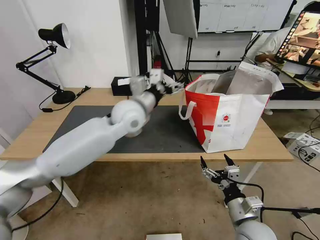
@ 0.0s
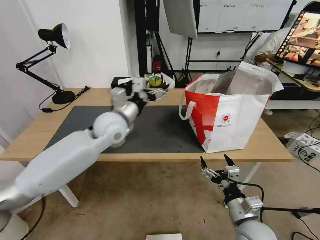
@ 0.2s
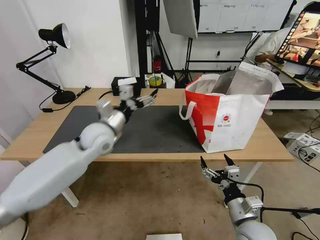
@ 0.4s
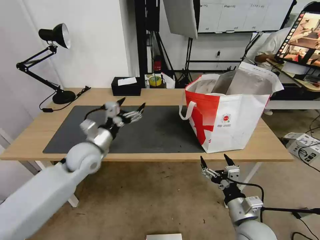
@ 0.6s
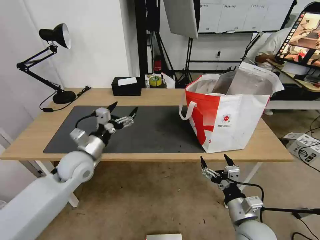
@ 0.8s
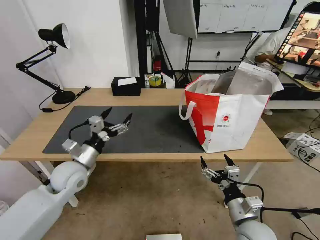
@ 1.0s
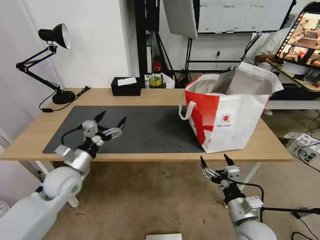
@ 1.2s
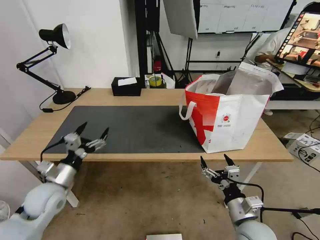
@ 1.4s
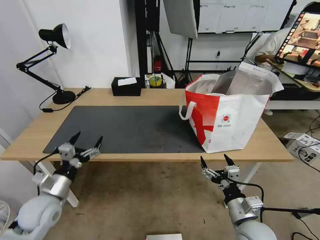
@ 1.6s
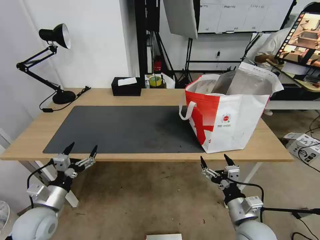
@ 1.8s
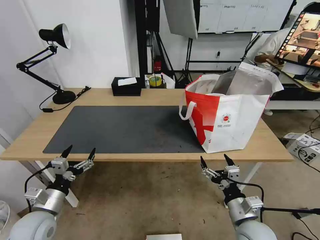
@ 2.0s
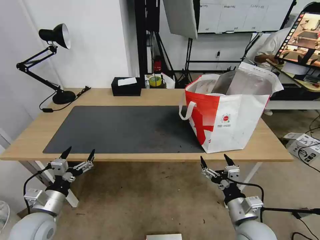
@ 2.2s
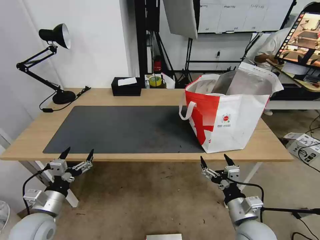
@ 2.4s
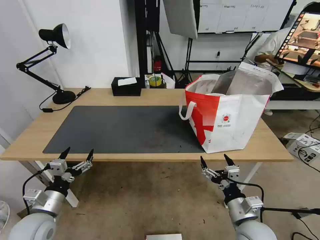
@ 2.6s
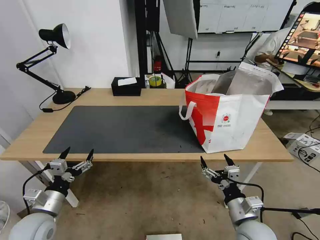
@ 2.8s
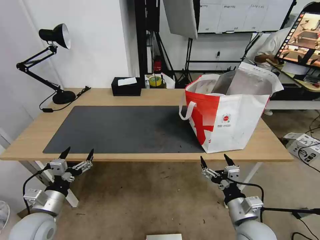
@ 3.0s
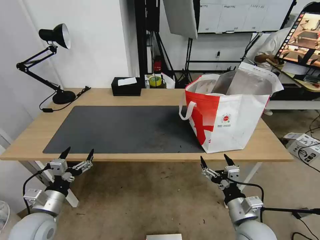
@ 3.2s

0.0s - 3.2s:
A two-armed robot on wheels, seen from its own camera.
Task of the whole recording: Pick up the trash from the table and place it into the takeout bag.
0.0s - 1.6s: The left gripper is displaced to the left, backward and downward by approximately 40 cm.
1.6s - 3.2s: The grippers stay close to where they were, moving slightly.

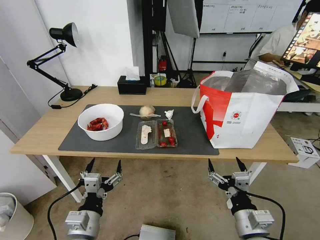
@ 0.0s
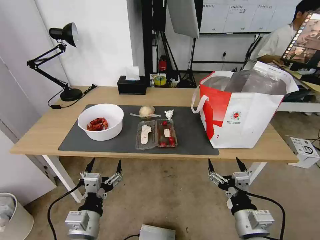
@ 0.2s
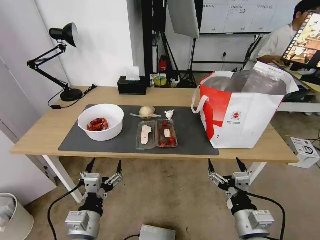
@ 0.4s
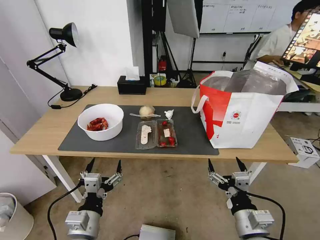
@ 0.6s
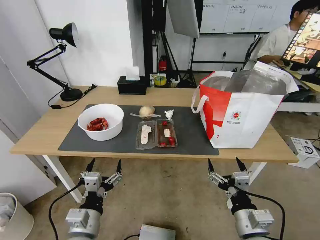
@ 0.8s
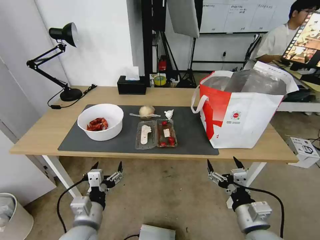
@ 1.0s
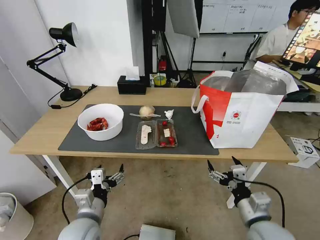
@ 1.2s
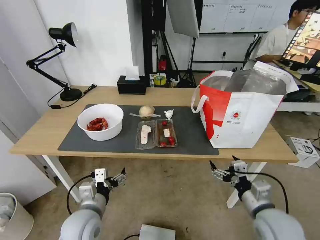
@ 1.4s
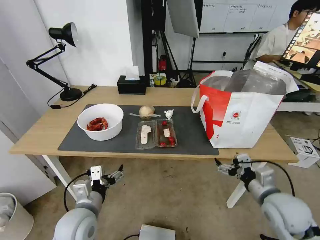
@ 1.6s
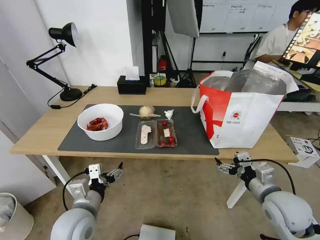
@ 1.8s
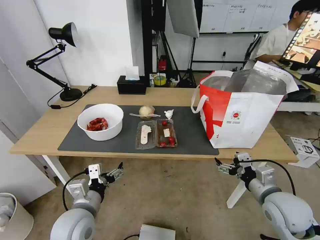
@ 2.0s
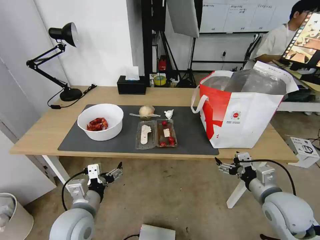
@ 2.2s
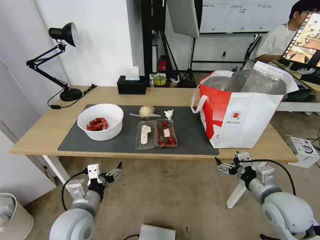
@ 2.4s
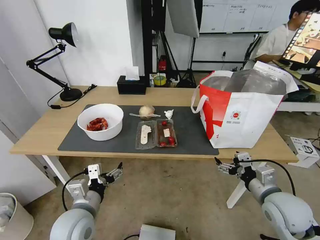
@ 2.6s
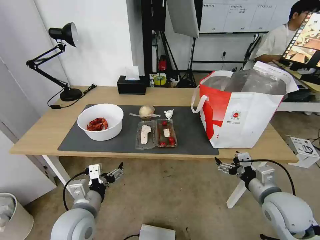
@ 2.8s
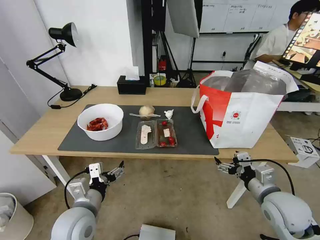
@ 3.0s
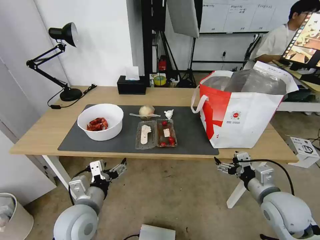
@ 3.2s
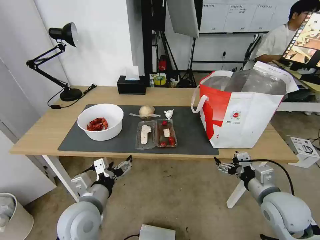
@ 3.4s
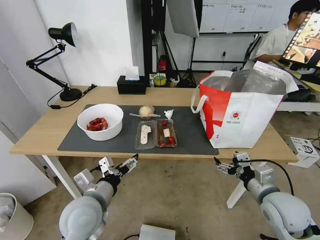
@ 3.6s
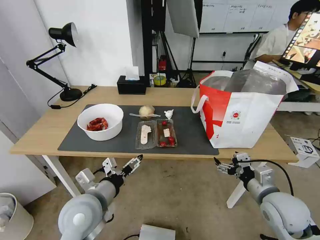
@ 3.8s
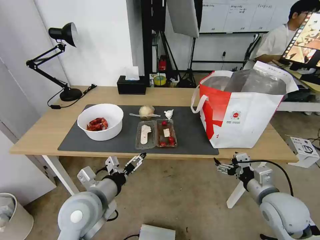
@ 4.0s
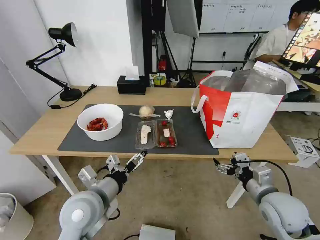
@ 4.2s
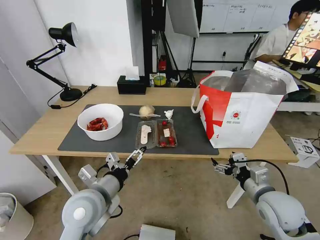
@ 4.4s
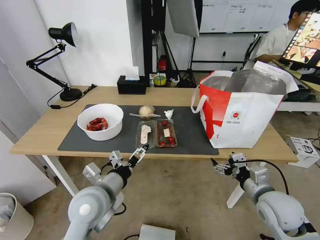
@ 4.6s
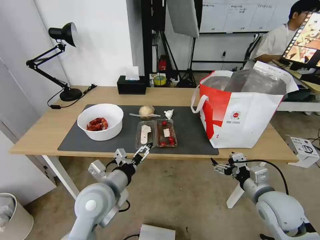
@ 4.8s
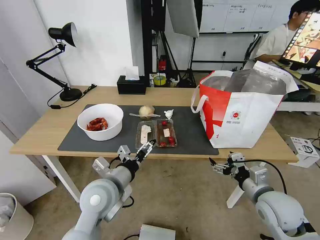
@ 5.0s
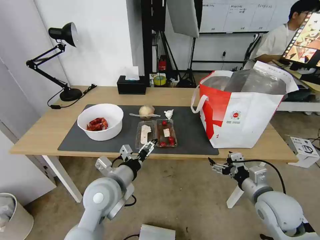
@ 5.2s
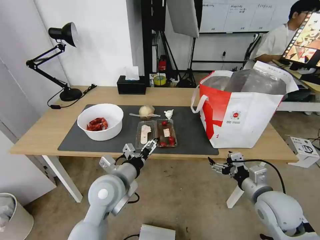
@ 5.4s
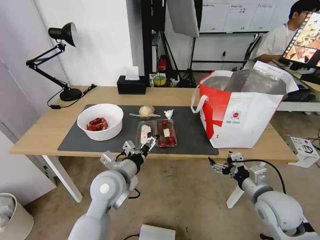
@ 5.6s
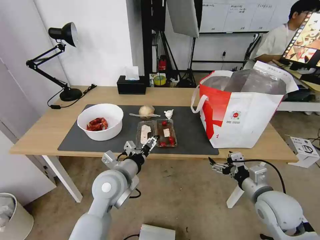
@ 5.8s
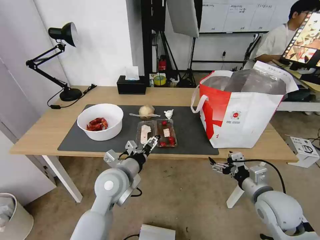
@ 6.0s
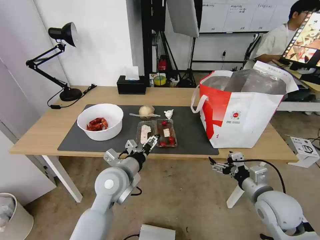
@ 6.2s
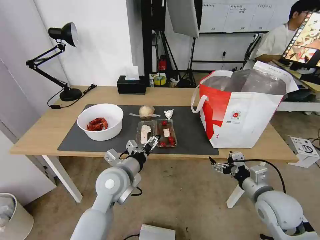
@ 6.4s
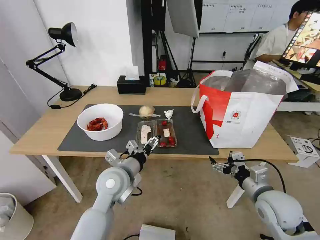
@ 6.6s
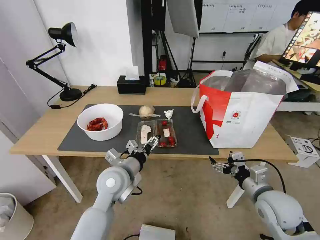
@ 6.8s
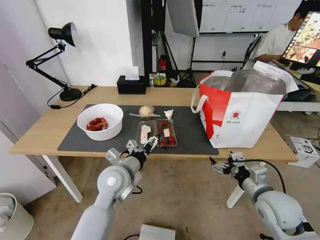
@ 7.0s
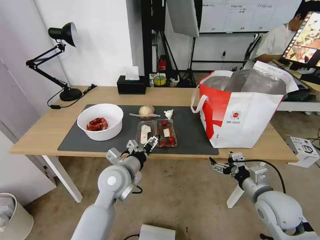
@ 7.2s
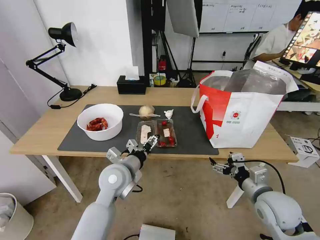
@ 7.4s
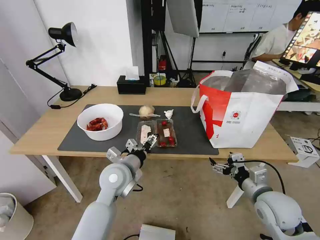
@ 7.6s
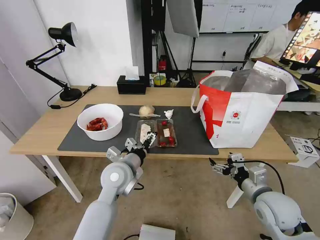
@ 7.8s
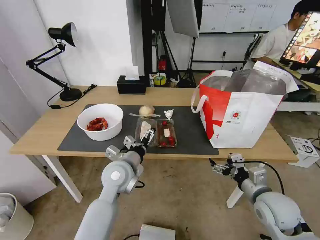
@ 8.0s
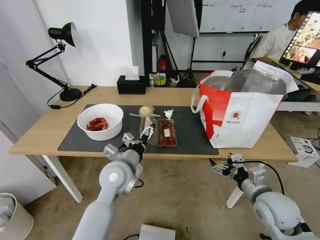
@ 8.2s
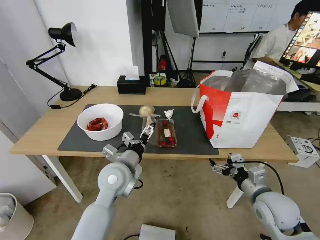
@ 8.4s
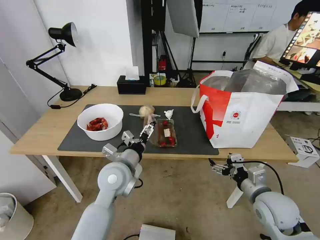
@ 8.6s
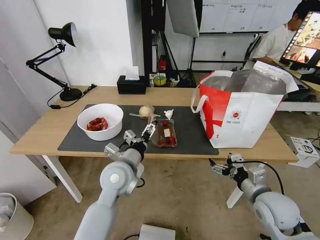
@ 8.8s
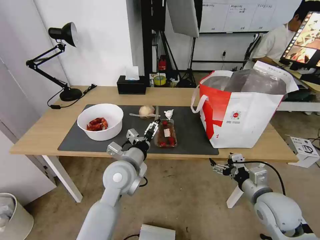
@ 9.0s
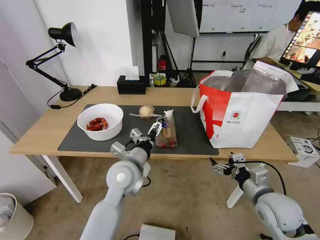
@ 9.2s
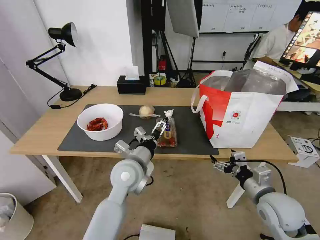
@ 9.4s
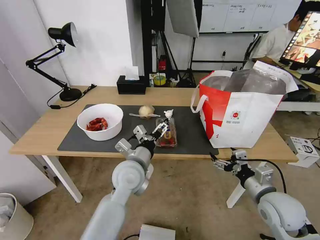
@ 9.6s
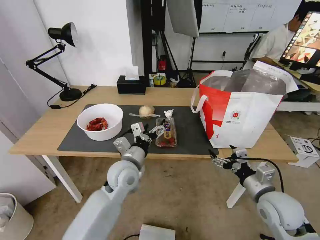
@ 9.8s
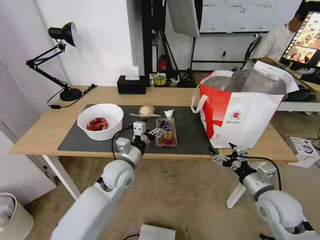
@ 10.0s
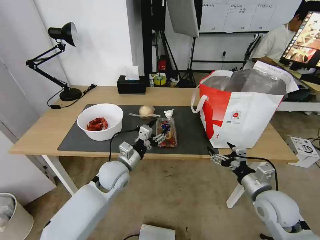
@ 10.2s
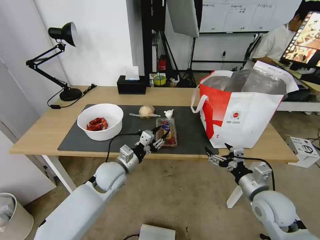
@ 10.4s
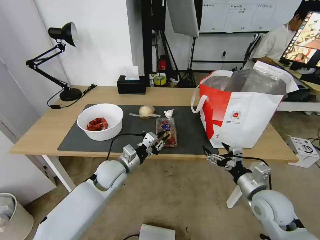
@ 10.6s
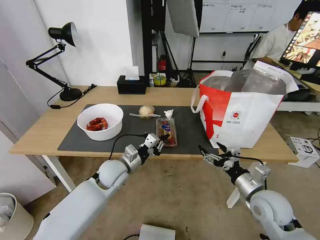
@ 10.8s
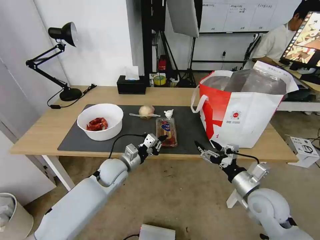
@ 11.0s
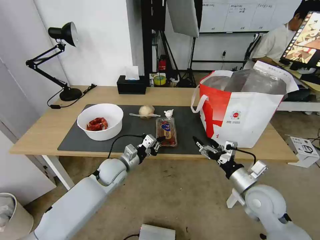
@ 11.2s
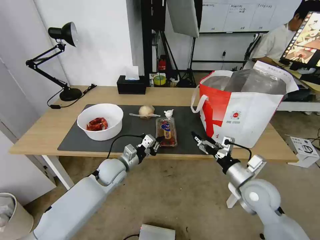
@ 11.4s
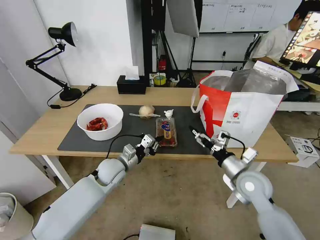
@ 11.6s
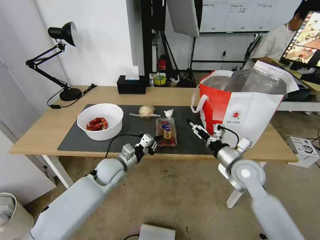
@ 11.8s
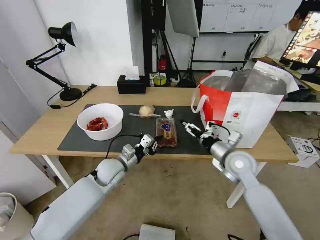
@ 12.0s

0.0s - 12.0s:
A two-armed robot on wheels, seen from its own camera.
Task of the whole recording: Pick up the trash from the table and place it into the takeout bag.
1.6s - 3.0s: The grippers stay close to where they were, moving slightly.
3.0s - 4.4s: The left gripper goes approximately 5 cm upward.
4.4s - 6.0s: The left gripper shifts some 5 cm forward.
6.0s - 9.0s: The grippers make only small movements.
9.0s - 10.4s: The left gripper is displaced downward and to the left by some 10 cm, and closes its fingers.
10.4s - 12.0s: The right gripper is displaced forward and to the left by some 15 cm.

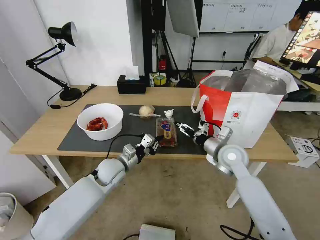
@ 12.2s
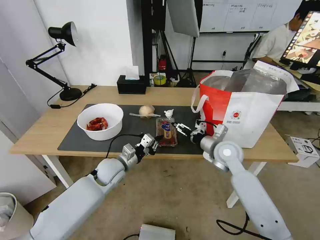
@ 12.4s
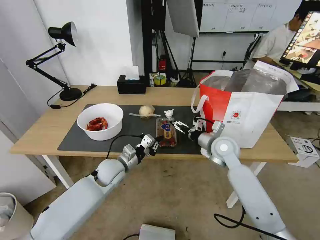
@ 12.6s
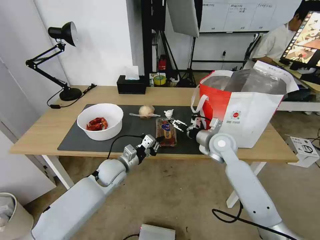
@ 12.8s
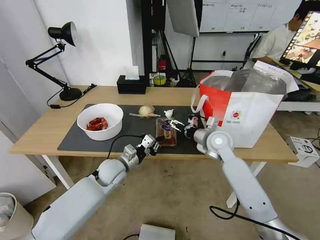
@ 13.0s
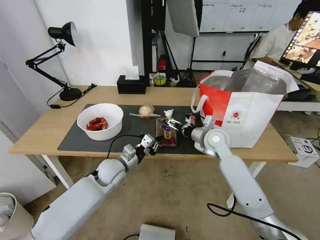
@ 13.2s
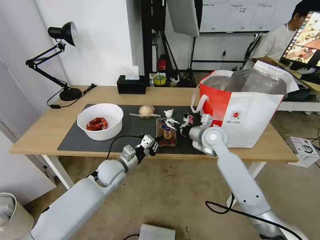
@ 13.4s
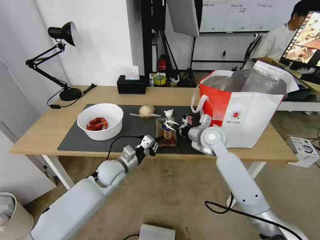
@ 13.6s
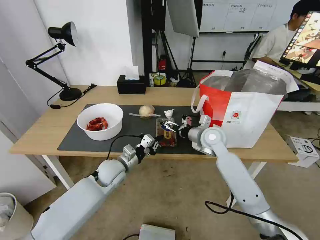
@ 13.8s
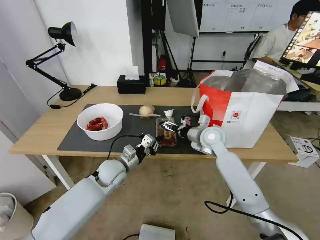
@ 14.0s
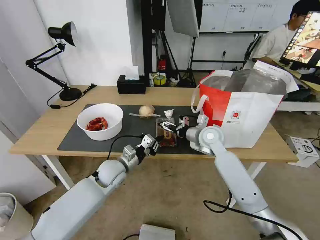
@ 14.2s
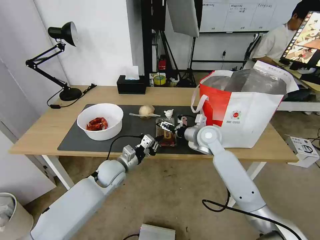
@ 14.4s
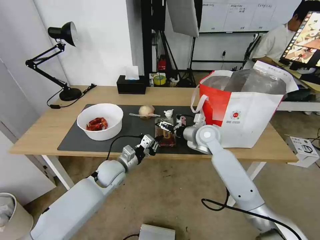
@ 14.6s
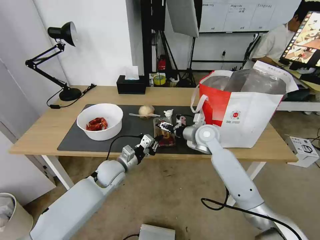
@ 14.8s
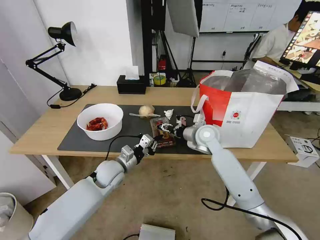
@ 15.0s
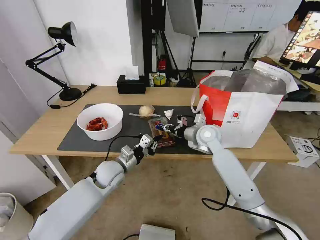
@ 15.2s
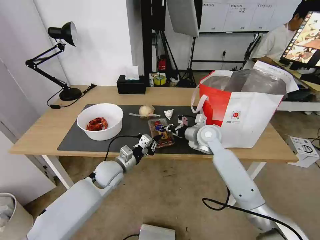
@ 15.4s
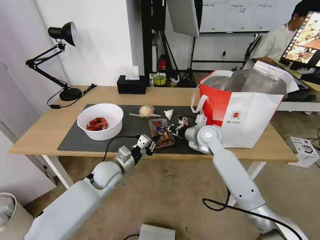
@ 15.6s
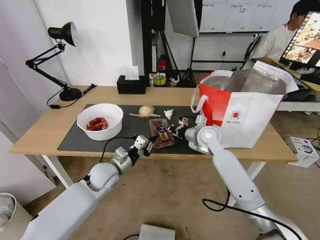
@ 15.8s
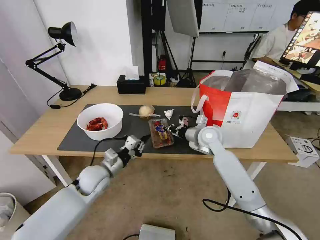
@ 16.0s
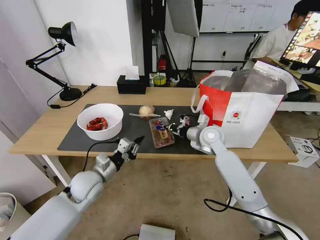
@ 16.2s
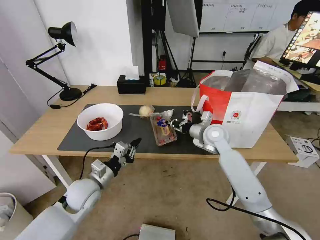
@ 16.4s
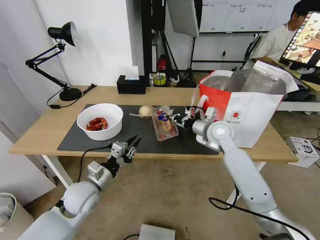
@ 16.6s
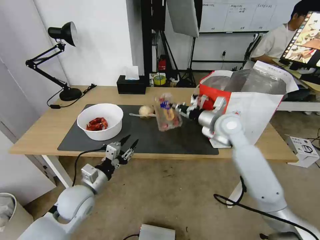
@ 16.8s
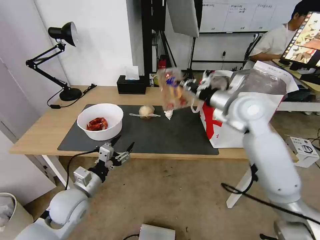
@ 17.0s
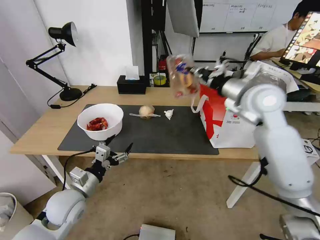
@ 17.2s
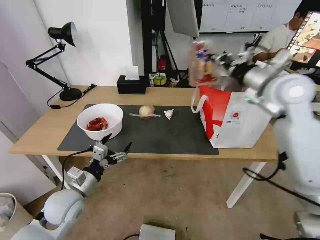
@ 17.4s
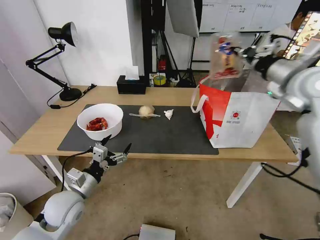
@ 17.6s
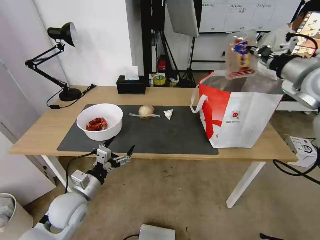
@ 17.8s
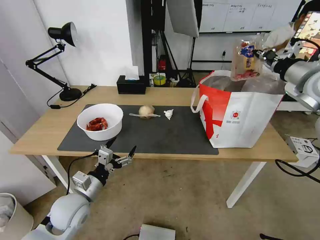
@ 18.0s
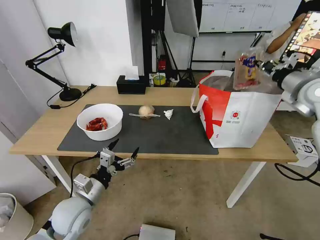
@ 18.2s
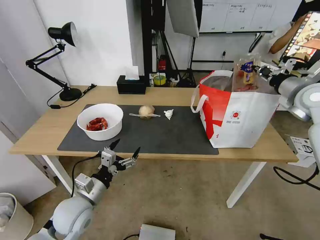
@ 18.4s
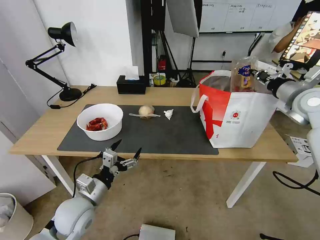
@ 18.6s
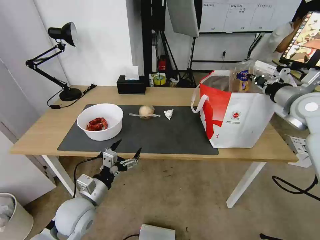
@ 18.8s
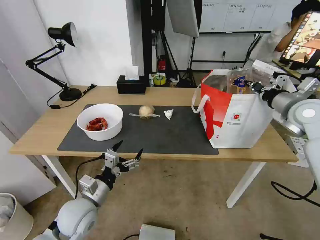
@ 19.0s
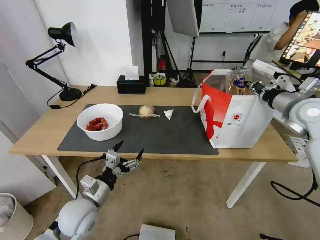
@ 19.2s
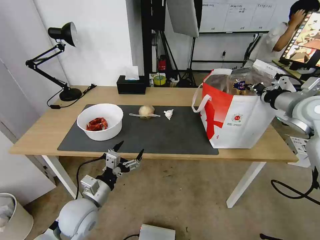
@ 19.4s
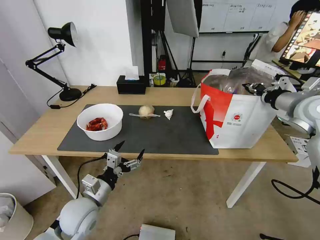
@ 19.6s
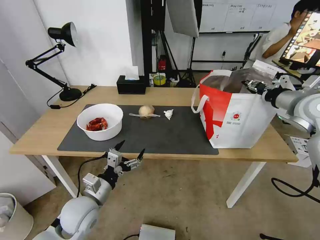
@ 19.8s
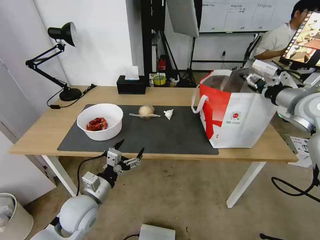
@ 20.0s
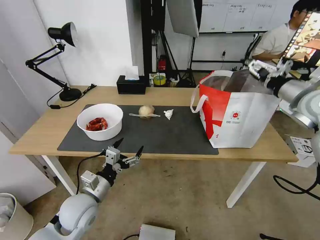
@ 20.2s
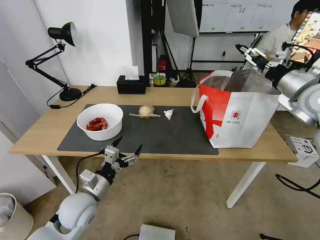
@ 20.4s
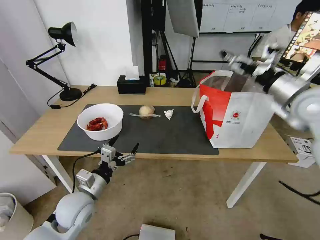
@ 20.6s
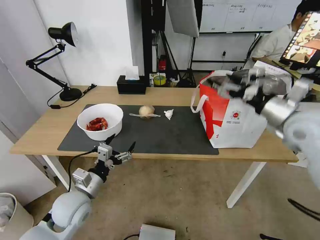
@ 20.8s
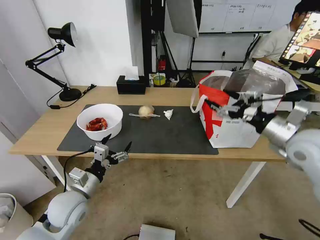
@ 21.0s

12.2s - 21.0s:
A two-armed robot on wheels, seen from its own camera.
Task of the whole recording: Pick up the trash from the table and place it into the takeout bag.
12.2s - 13.6s: The right gripper shifts about 5 cm forward.
13.6s - 15.2s: The right gripper closes.
15.2s - 16.6s: The left gripper travels backward and to the left by about 10 cm; the right gripper closes its fingers.
16.6s - 18.0s: The right gripper shifts about 30 cm to the right and upward. Meanwhile the left gripper opens its fingers.
18.0s - 19.6s: The right gripper shifts some 5 cm downward.
19.6s - 21.0s: The right gripper is displaced backward and to the left by some 10 cm, and opens up.
